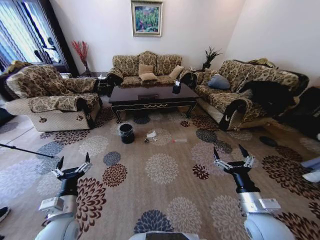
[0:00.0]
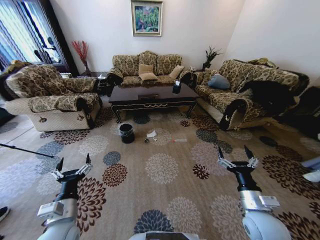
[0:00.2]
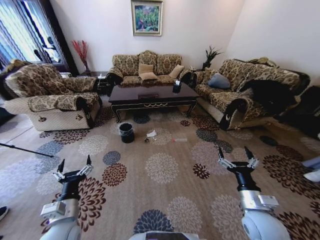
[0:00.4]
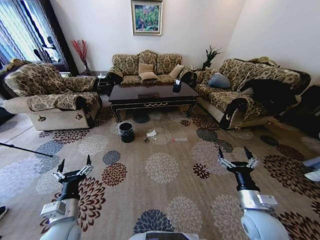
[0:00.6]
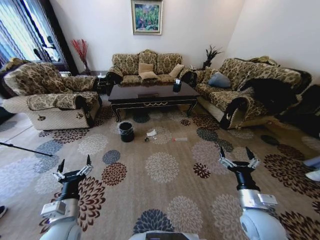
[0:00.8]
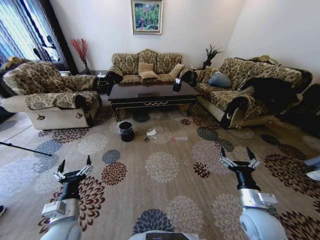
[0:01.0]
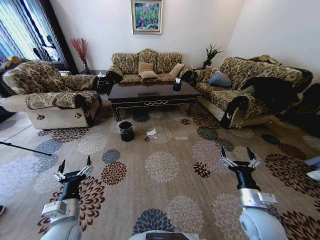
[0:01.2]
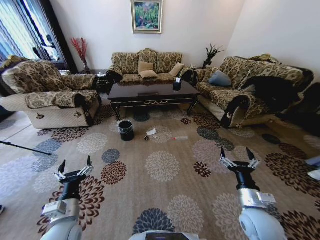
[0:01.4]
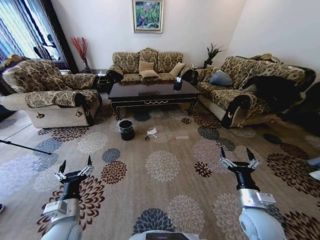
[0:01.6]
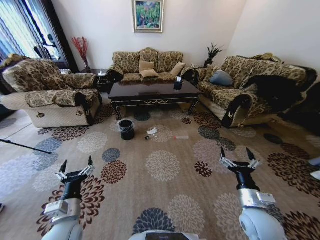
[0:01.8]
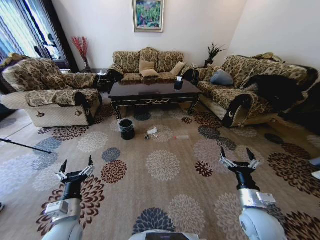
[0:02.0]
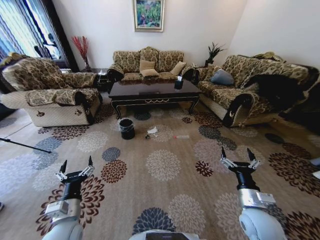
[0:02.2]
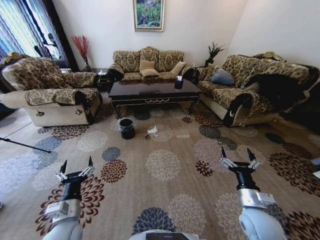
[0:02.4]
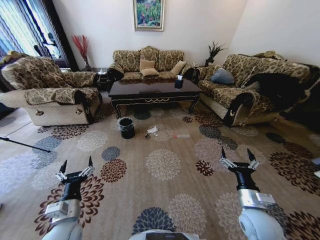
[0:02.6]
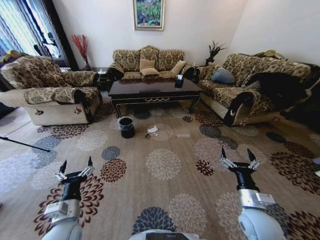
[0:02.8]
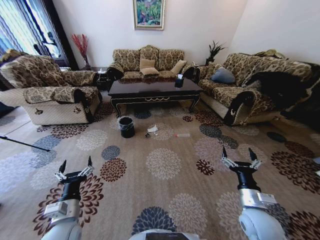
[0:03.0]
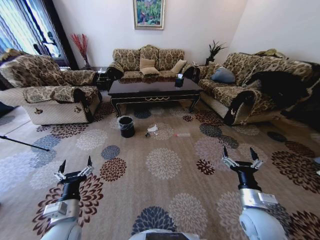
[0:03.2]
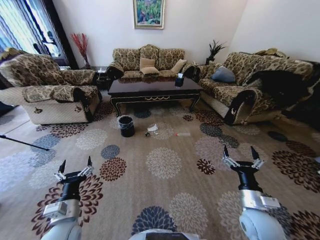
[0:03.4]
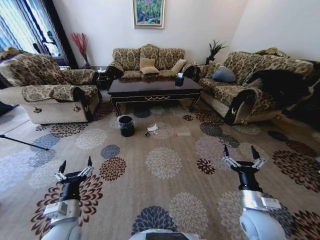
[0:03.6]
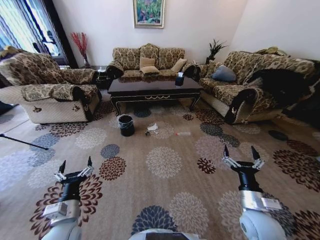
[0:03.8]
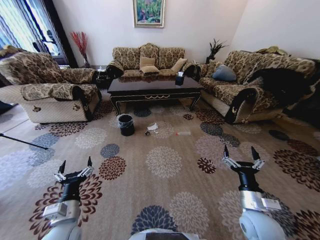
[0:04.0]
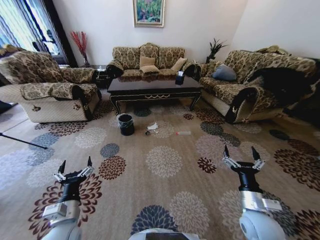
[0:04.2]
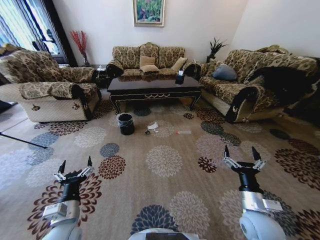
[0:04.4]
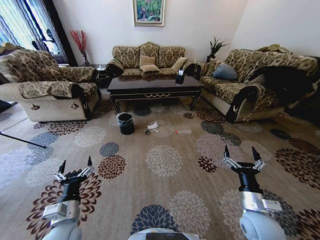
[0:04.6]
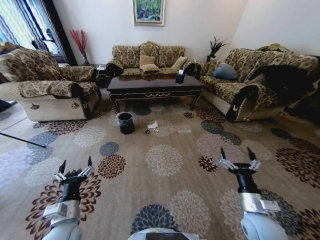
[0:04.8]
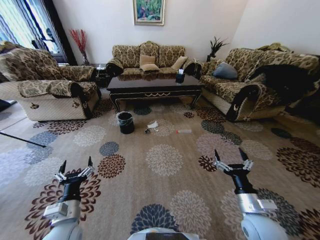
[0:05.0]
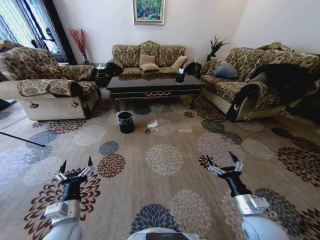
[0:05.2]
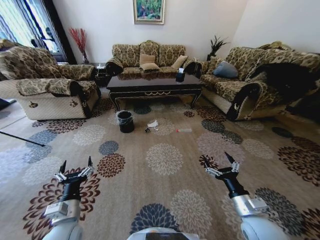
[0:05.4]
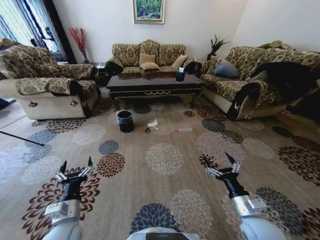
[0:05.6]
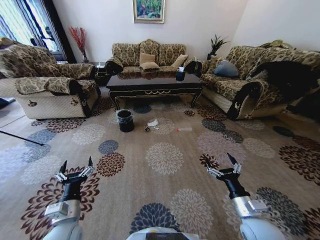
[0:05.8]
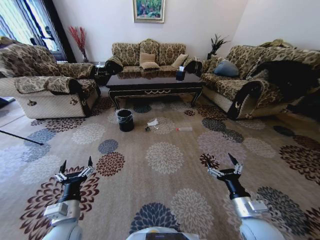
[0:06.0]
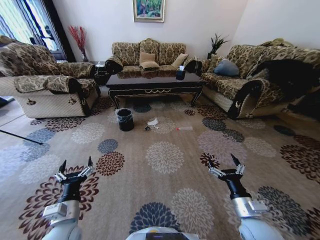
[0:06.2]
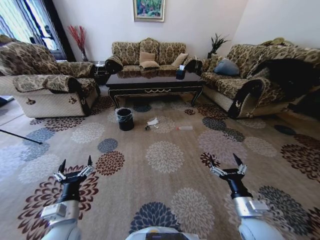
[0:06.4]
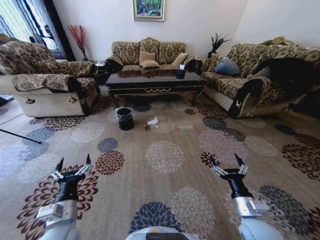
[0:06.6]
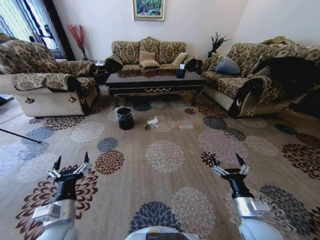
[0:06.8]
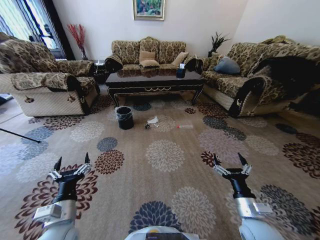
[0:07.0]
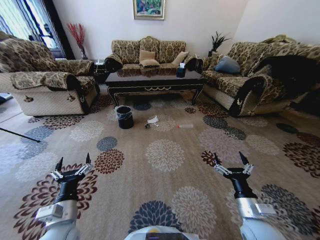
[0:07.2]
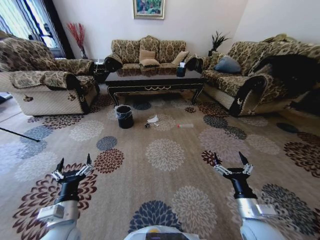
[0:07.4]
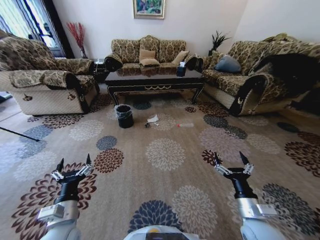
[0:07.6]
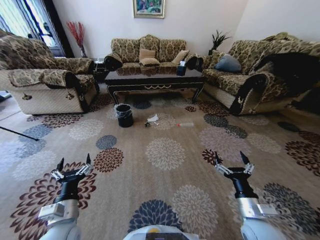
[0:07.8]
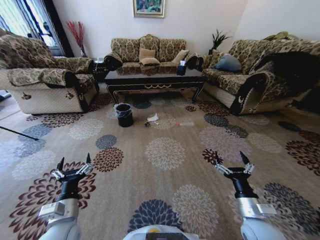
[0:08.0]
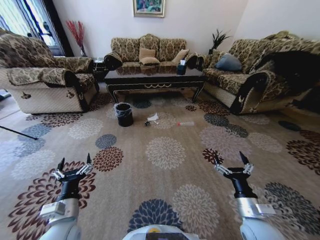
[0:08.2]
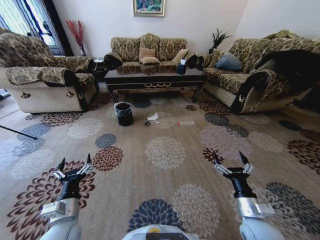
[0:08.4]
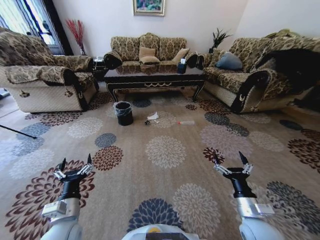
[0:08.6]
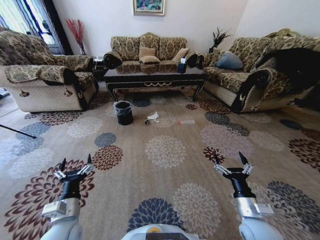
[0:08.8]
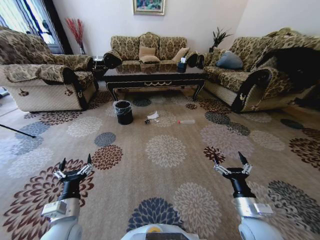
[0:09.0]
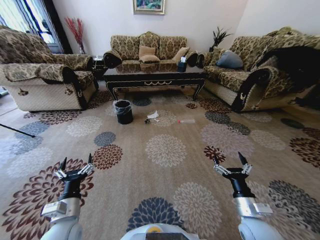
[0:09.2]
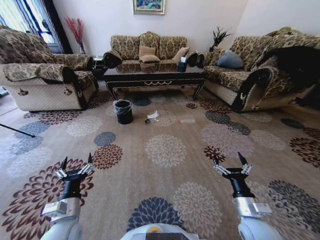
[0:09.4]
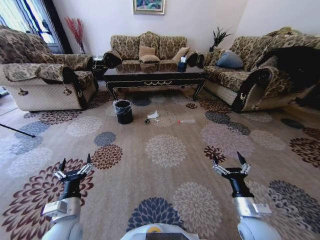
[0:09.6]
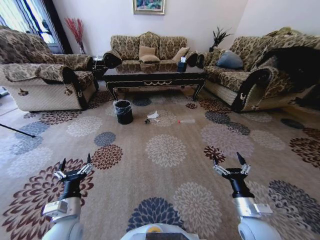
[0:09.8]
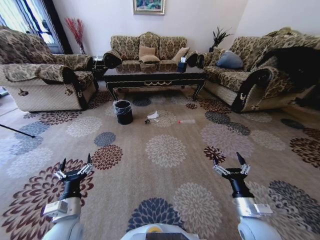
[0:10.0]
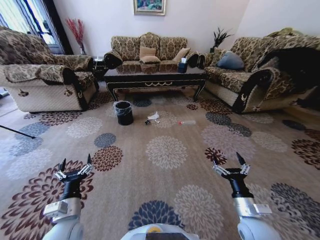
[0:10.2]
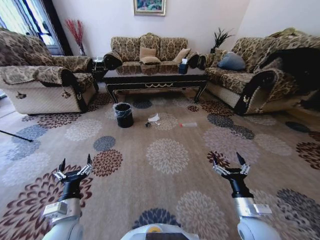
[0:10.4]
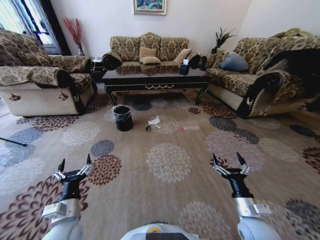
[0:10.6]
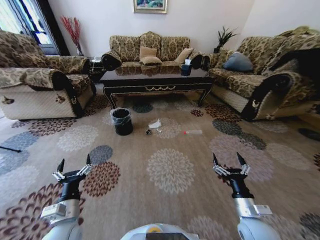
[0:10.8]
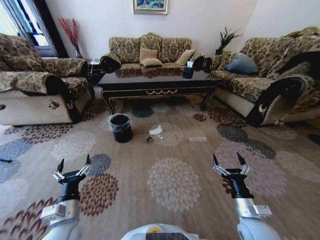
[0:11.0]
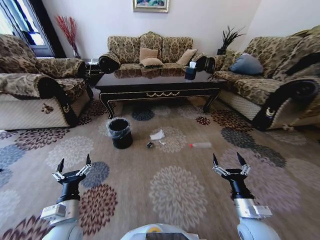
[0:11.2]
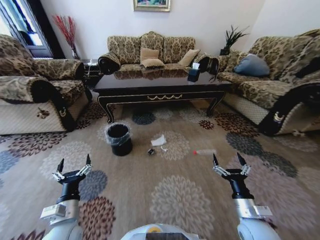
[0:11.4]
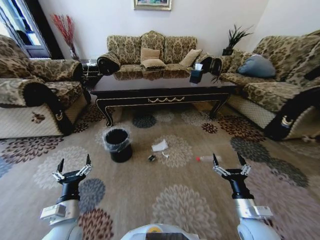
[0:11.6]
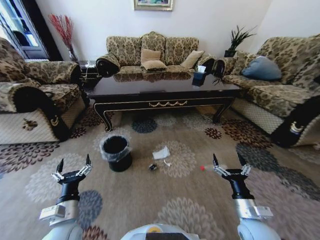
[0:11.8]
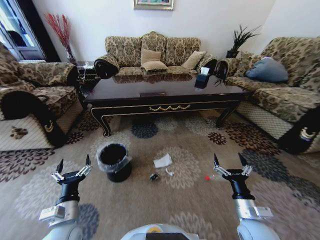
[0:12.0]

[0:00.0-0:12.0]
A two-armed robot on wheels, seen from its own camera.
Task of the whole recording: Move to the front of the table and pick up the trash from the floor, then place it into the trash bin.
0:09.0 to 0:10.4: The two grippers keep their place.

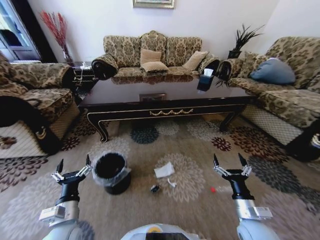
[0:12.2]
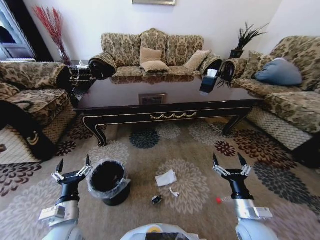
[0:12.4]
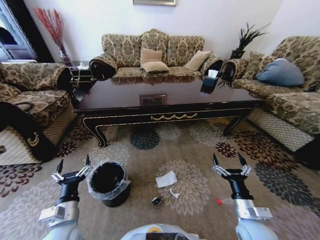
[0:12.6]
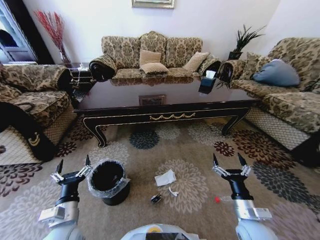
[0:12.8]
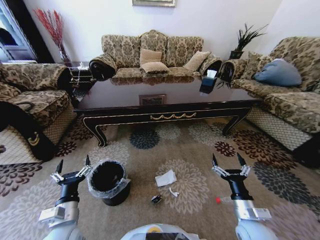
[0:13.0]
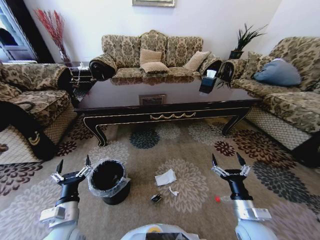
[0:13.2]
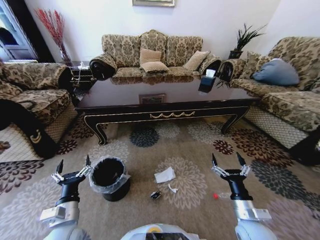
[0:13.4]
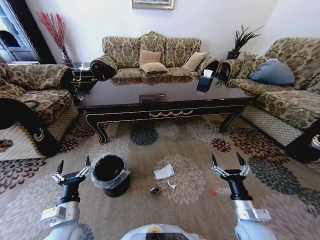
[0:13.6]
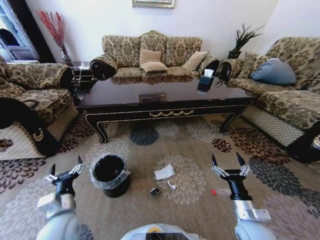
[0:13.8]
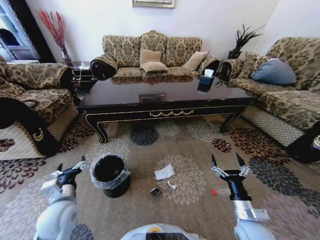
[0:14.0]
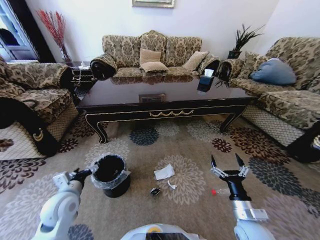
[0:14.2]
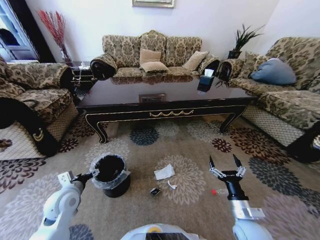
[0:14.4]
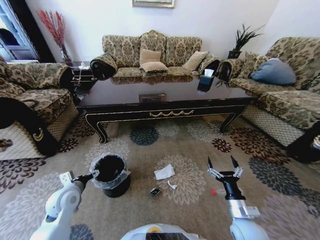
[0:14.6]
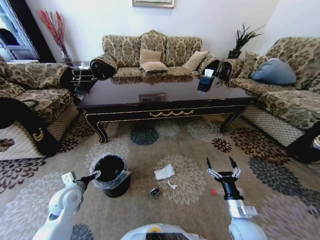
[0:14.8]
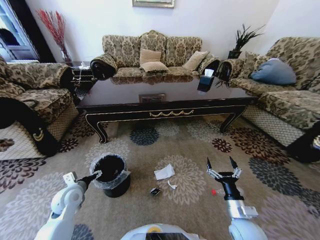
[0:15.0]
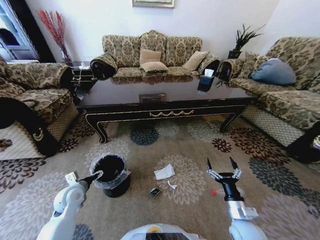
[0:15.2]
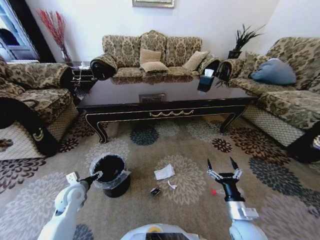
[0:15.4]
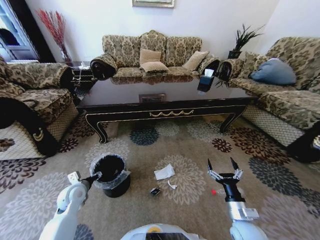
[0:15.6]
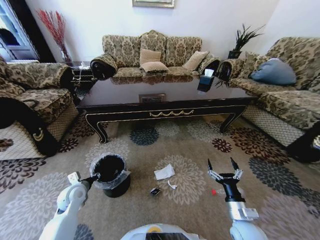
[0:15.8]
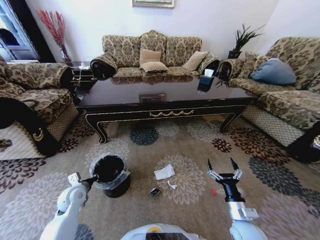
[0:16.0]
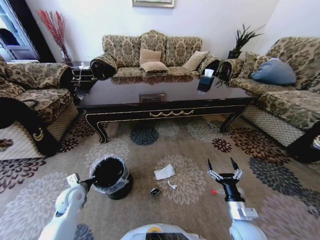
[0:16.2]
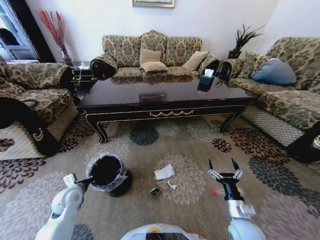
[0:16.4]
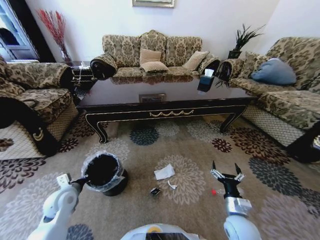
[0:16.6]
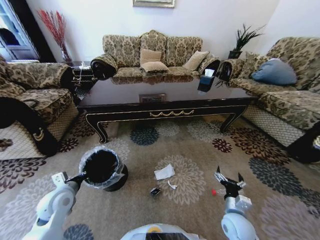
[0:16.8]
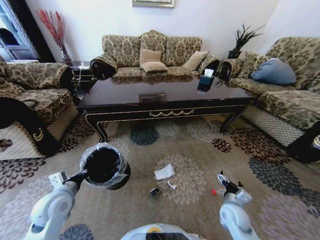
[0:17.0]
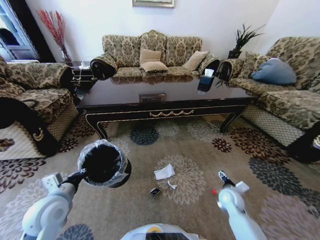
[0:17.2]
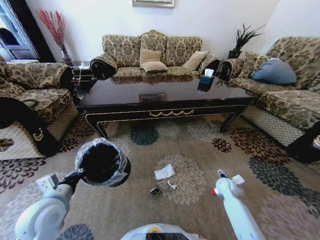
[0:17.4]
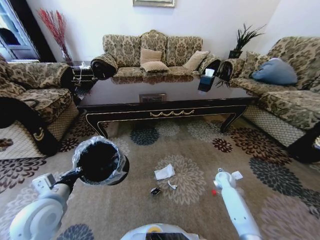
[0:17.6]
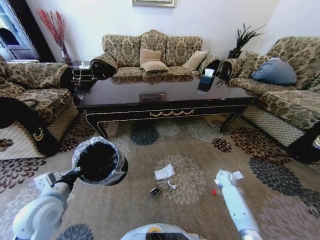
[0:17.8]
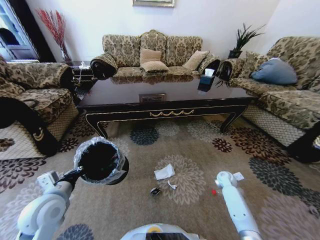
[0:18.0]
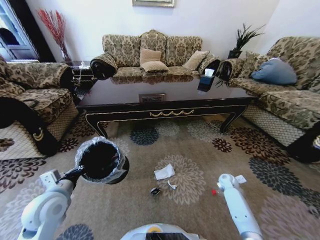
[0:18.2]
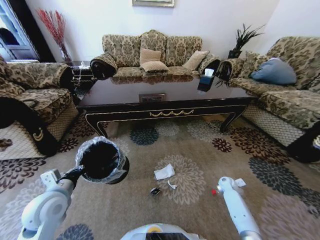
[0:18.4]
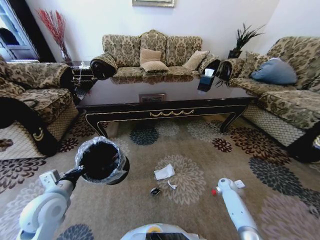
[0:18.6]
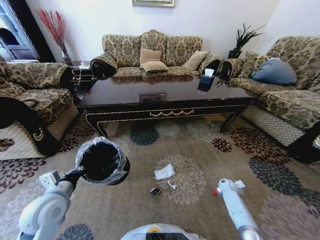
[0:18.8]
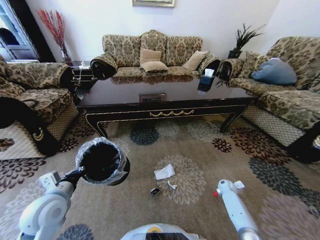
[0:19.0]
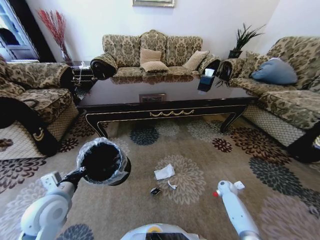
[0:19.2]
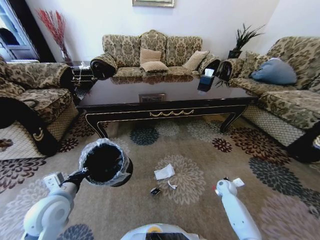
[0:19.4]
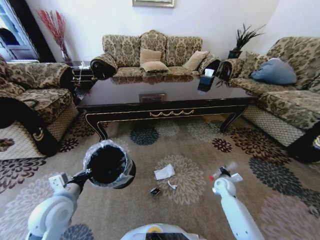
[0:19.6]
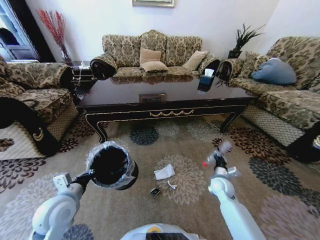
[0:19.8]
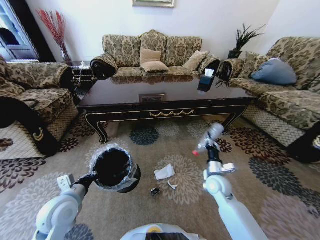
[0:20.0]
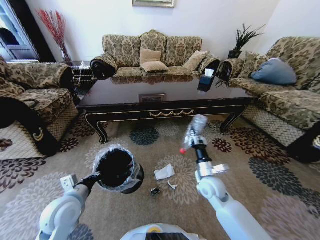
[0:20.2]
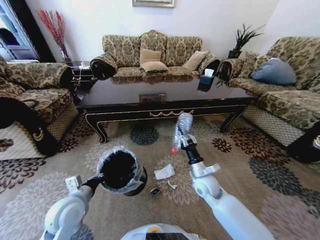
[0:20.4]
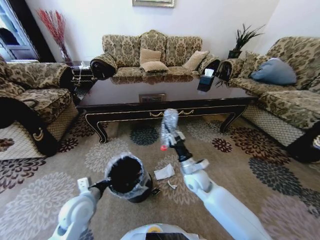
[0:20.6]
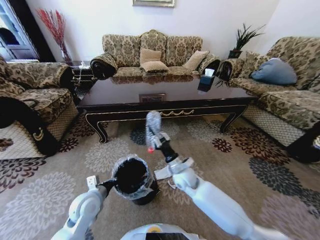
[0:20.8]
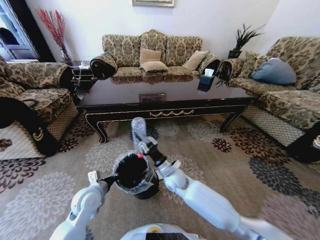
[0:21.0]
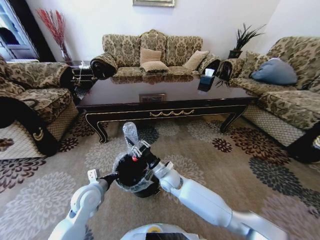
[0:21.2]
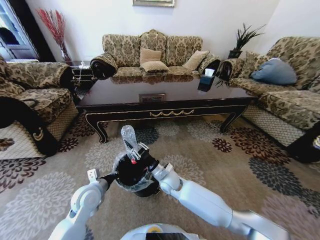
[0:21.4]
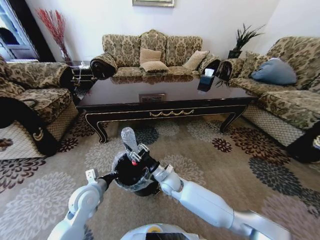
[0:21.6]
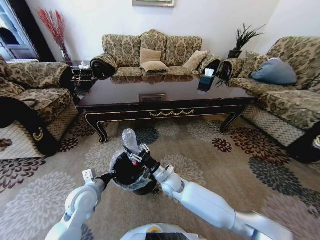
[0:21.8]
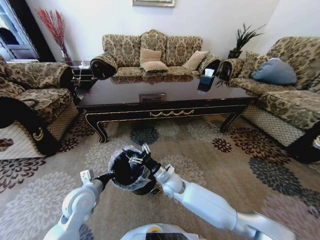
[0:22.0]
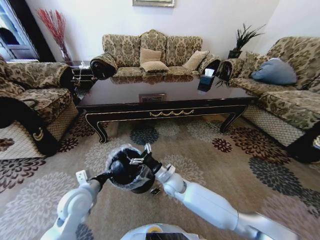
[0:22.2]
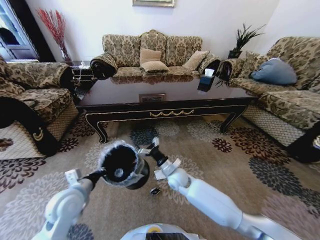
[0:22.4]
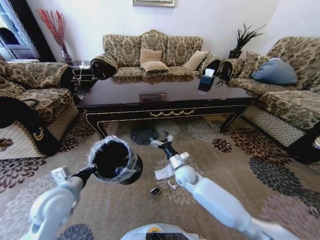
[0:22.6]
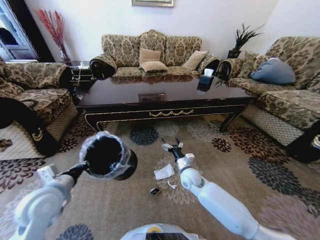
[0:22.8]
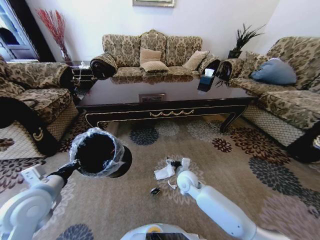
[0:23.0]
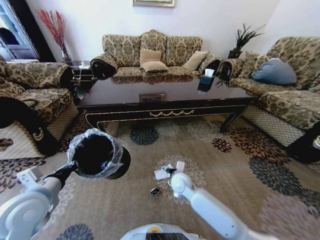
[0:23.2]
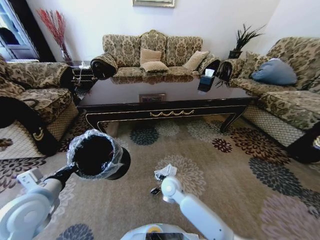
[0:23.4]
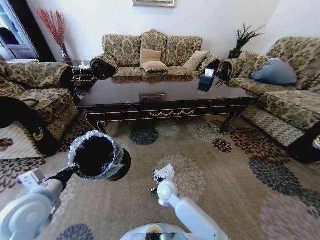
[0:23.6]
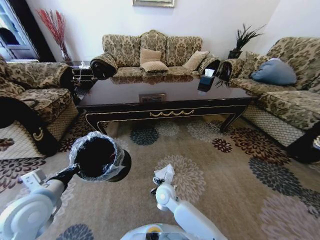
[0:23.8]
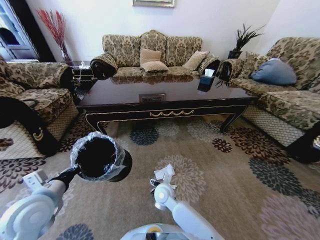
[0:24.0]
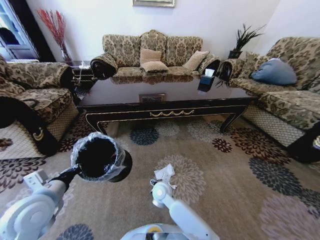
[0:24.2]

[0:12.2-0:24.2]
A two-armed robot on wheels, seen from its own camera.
Task of the whole recording: Move to the front of the table and pick up the trash from the floor, then place it into the trash bin.
0:12.2 to 0:13.8: The grippers move only a little.
0:13.8 to 0:15.2: The left gripper goes approximately 15 cm forward and to the left.
0:15.2 to 0:16.6: The left gripper closes.
0:16.6 to 0:18.2: The left gripper is displaced upward by roughly 10 cm. The right gripper travels forward, to the right and downward by approximately 25 cm.
0:18.2 to 0:19.8: The right gripper goes some 15 cm to the left, upward and backward, and closes up.
0:19.8 to 0:21.2: The left gripper heads downward and forward, covering about 10 cm. The right gripper travels to the left by roughly 25 cm.
0:21.2 to 0:22.6: The left gripper travels upward and to the left by some 10 cm, while the right gripper is displaced to the right by roughly 10 cm, and opens.
0:22.6 to 0:24.2: The right gripper is displaced to the left and backward by some 15 cm.
